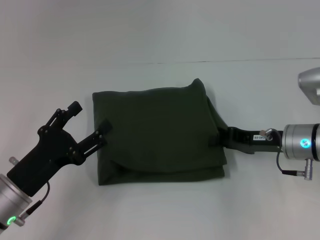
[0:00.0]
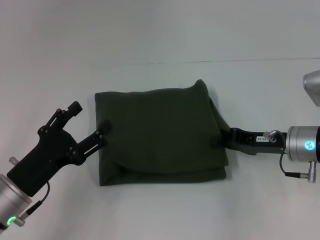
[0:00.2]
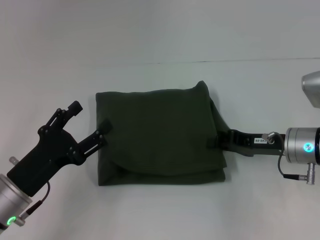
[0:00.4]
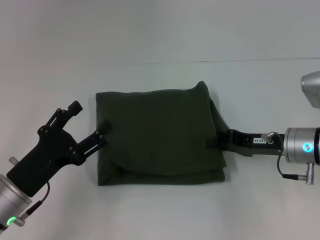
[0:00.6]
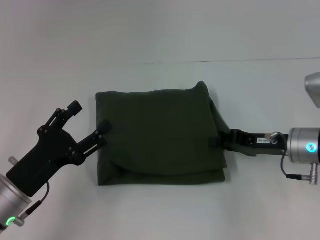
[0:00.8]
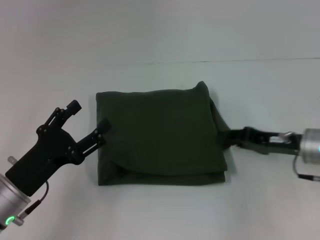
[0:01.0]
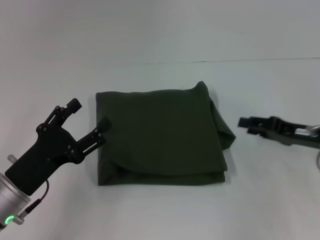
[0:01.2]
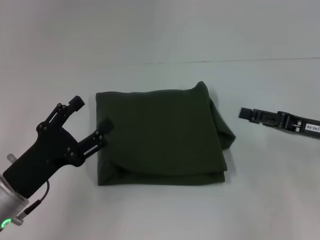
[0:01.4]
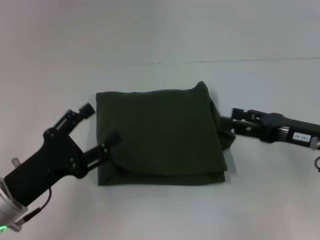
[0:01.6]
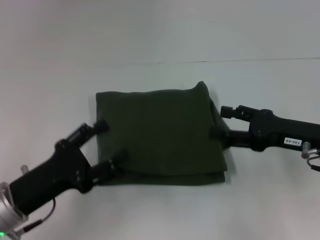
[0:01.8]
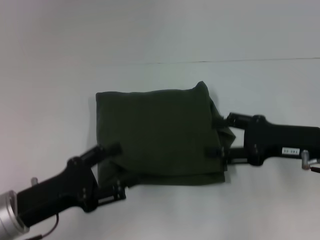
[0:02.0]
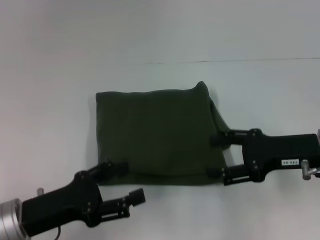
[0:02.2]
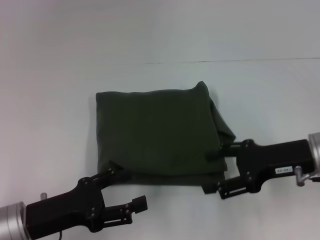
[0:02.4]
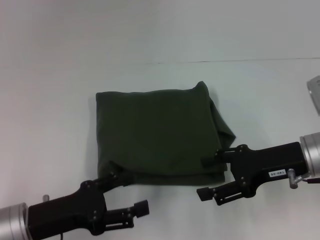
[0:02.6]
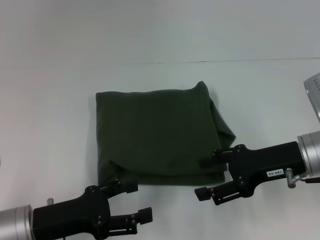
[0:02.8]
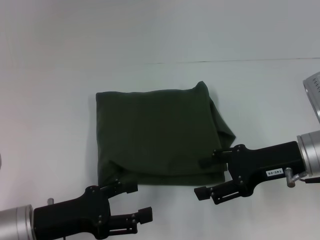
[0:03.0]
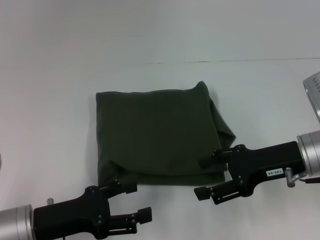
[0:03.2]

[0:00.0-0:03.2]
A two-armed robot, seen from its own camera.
0:00.0 to 0:01.6: The right gripper changes place by roughly 5 cm, and opens up.
